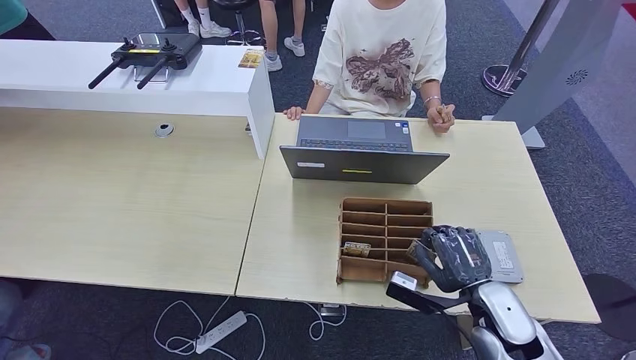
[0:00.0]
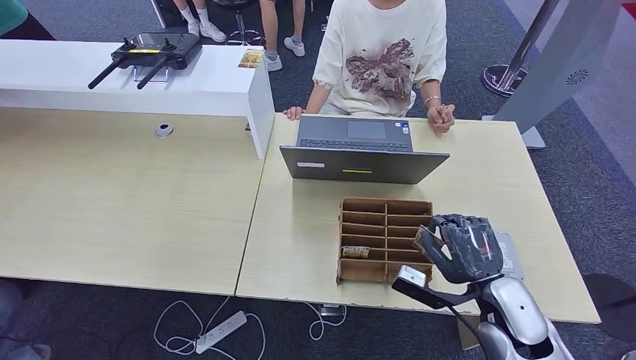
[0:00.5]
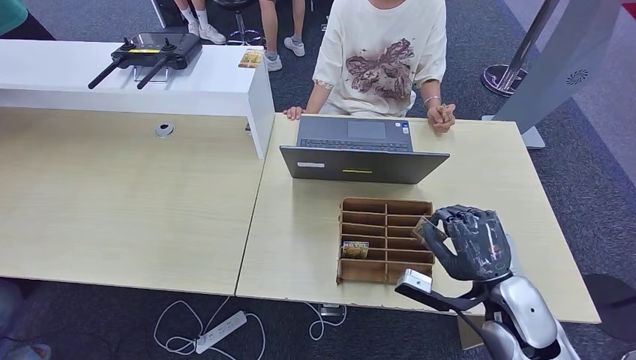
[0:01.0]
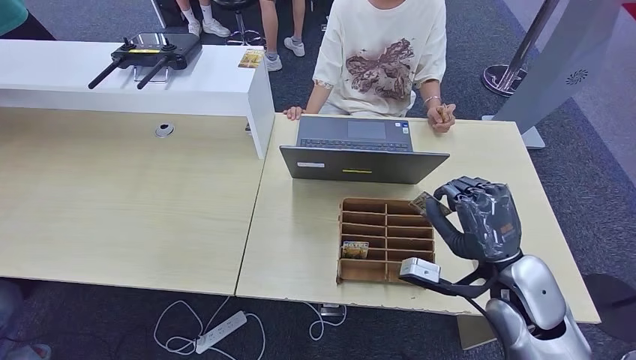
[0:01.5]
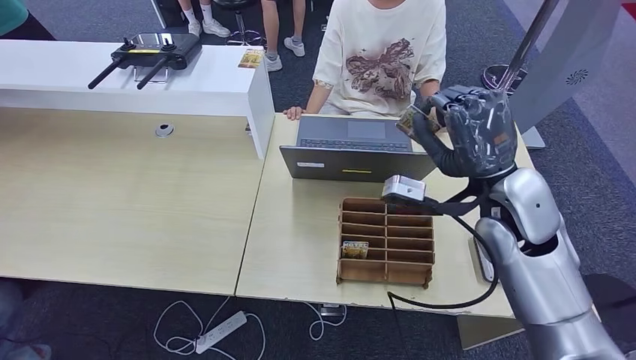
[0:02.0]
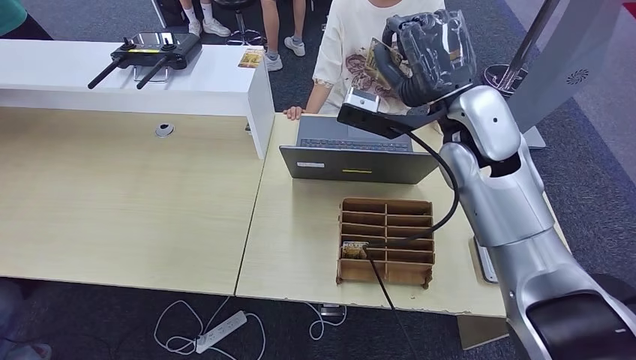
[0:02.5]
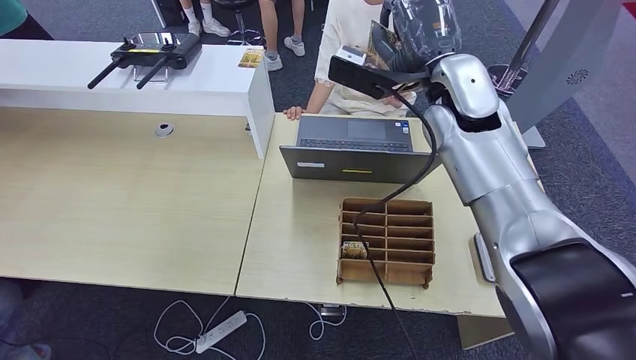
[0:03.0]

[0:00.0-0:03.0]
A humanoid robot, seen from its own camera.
Step, 0:01.5 to 0:03.0: Hand the room key to the person.
0:00.0 to 0:01.5: The right hand heads upward, covering roughly 10 cm.
0:01.5 to 0:03.0: The right hand travels forward, upward and to the left by roughly 30 cm.
